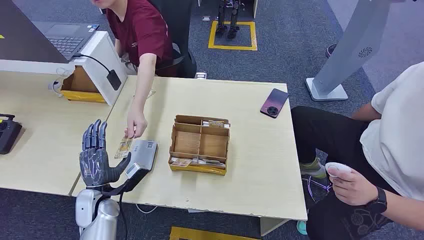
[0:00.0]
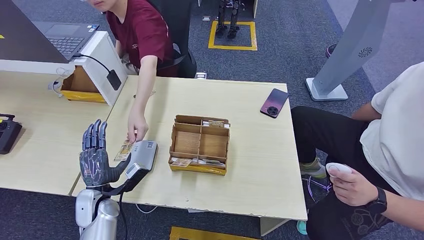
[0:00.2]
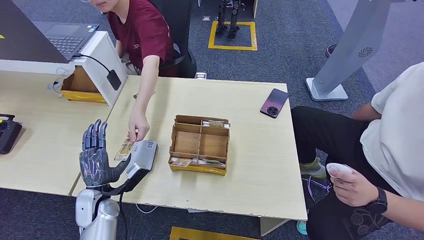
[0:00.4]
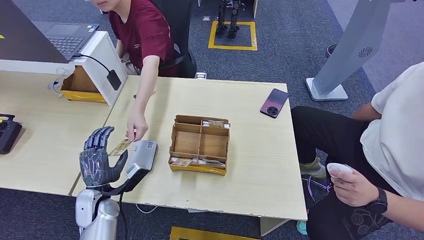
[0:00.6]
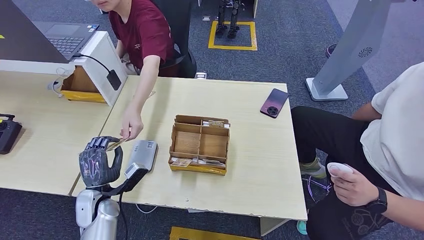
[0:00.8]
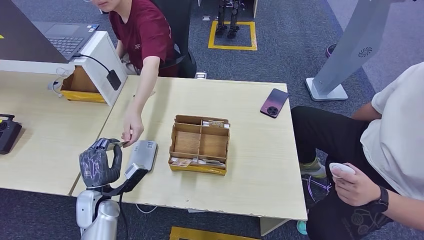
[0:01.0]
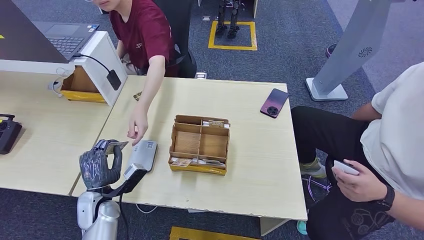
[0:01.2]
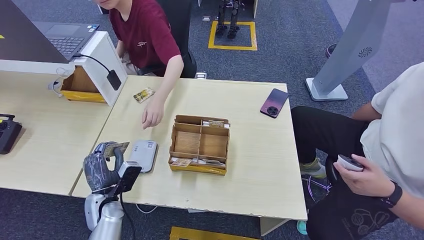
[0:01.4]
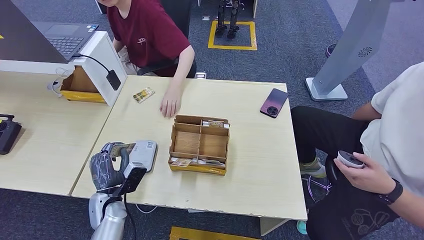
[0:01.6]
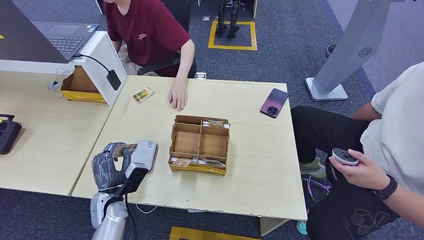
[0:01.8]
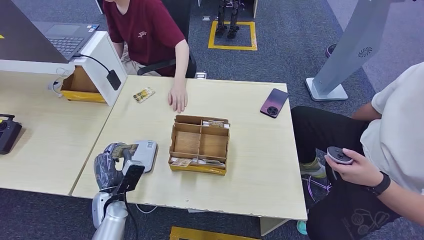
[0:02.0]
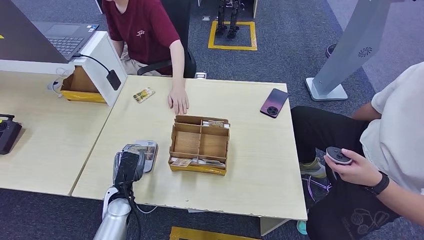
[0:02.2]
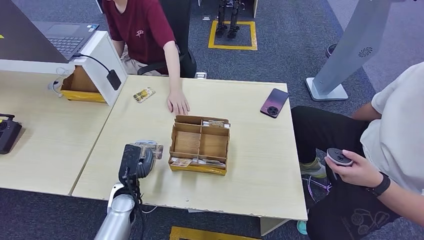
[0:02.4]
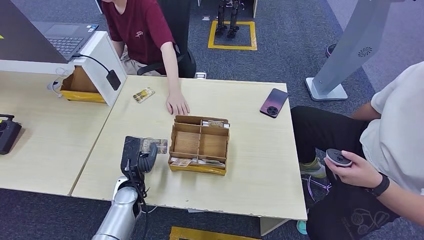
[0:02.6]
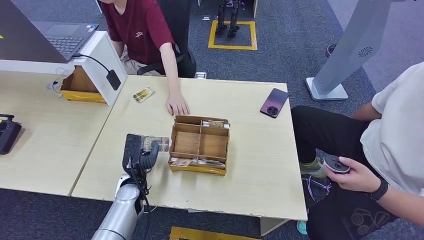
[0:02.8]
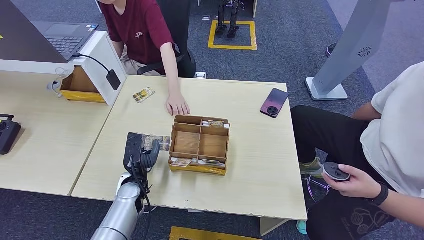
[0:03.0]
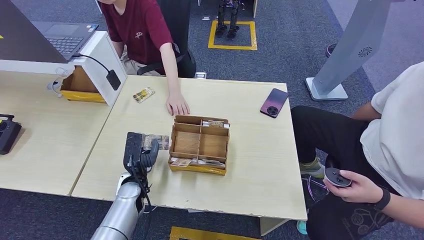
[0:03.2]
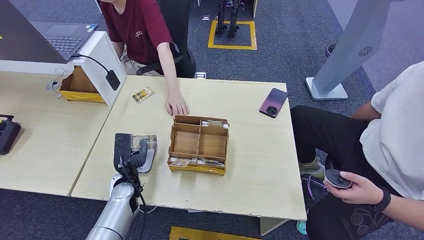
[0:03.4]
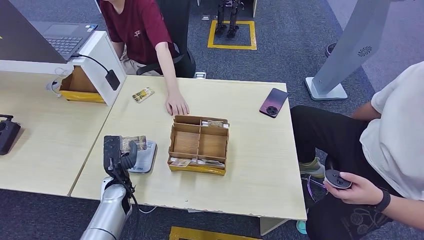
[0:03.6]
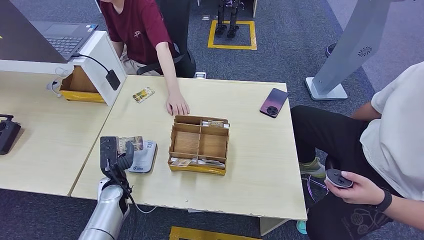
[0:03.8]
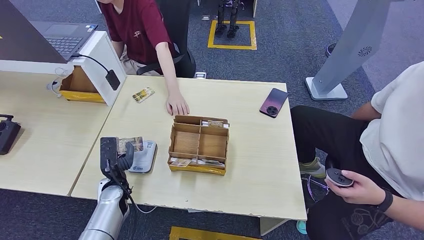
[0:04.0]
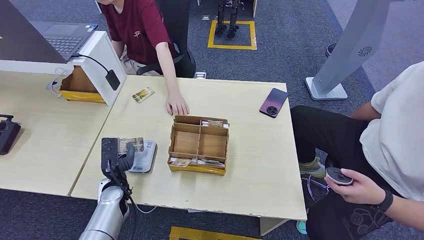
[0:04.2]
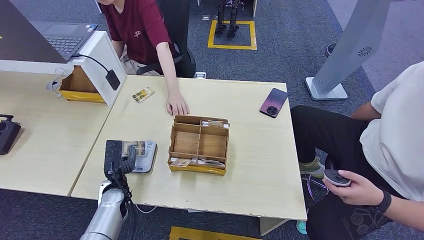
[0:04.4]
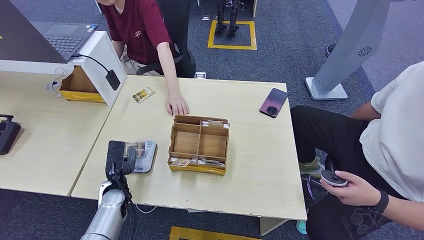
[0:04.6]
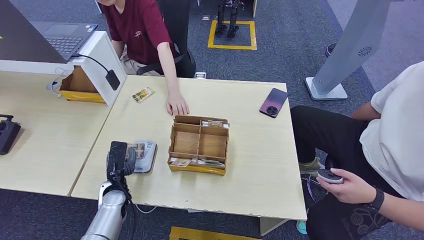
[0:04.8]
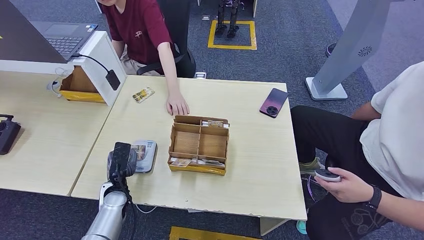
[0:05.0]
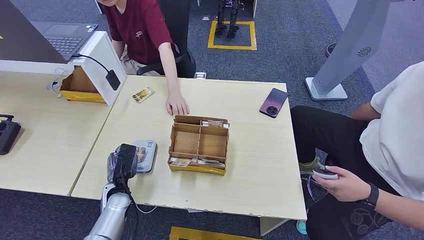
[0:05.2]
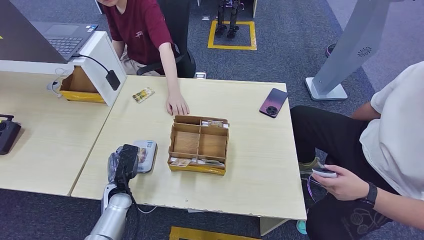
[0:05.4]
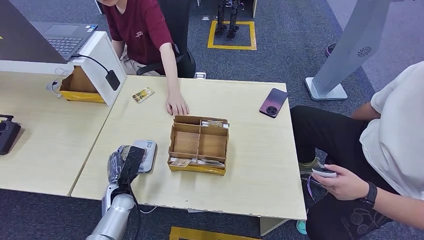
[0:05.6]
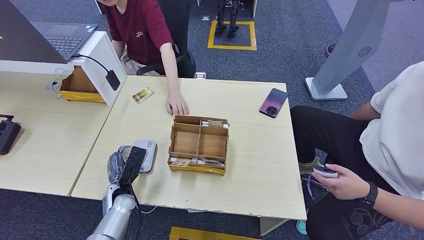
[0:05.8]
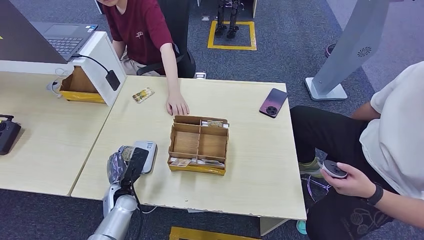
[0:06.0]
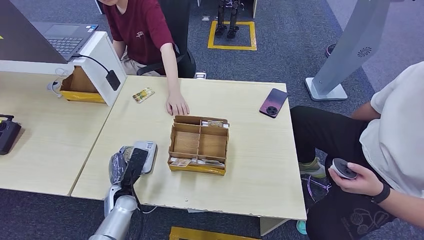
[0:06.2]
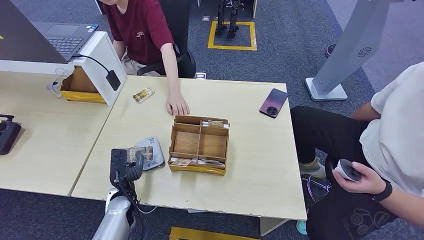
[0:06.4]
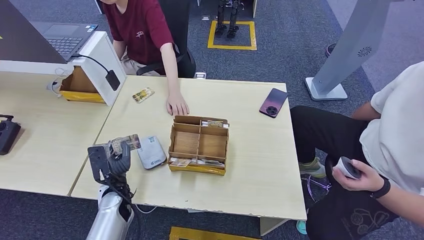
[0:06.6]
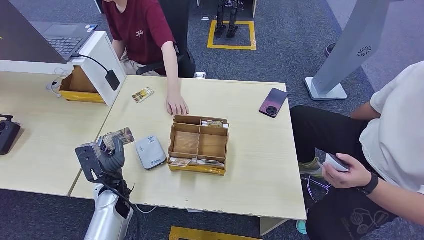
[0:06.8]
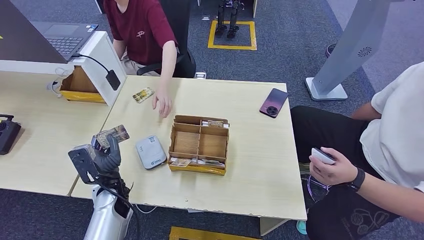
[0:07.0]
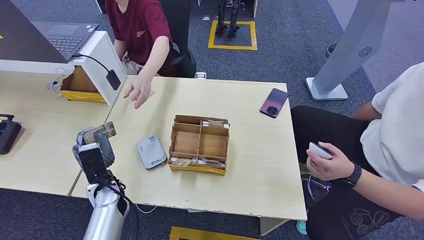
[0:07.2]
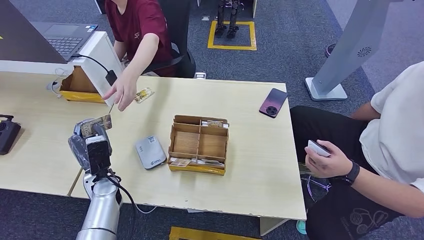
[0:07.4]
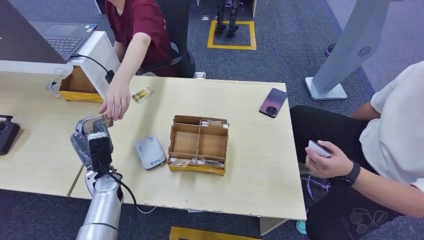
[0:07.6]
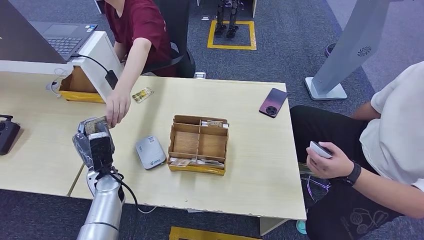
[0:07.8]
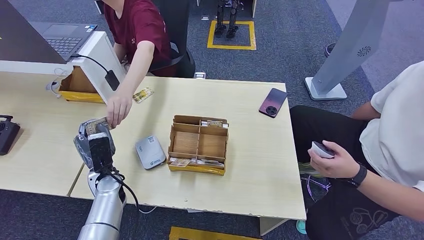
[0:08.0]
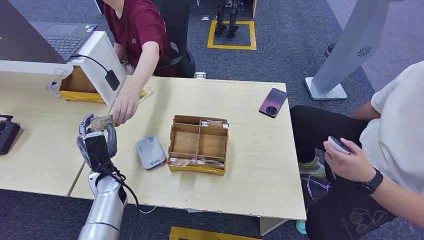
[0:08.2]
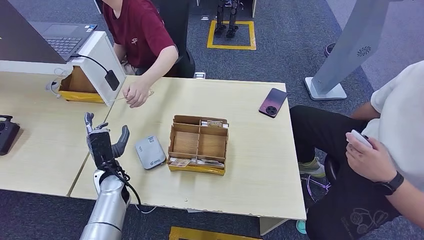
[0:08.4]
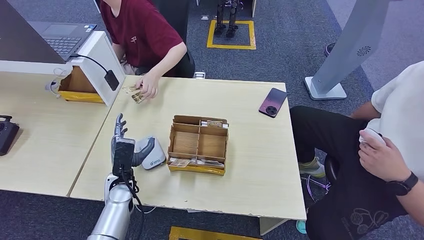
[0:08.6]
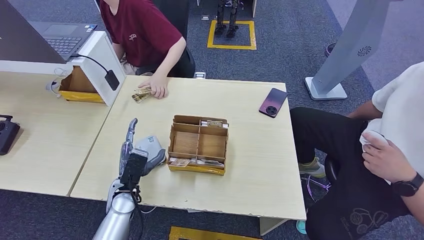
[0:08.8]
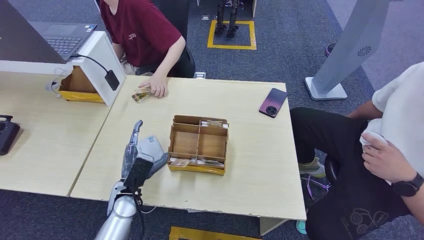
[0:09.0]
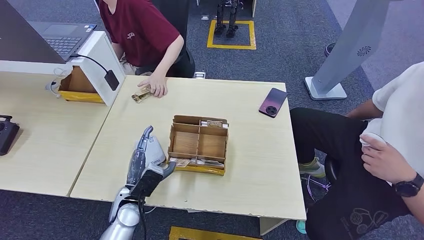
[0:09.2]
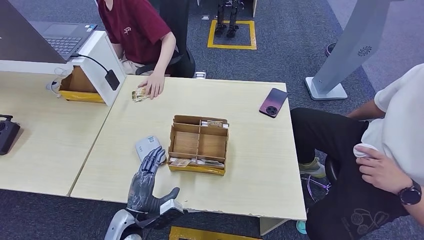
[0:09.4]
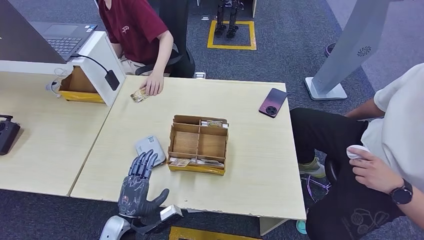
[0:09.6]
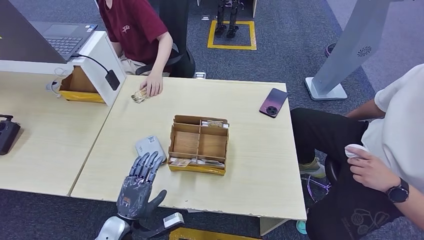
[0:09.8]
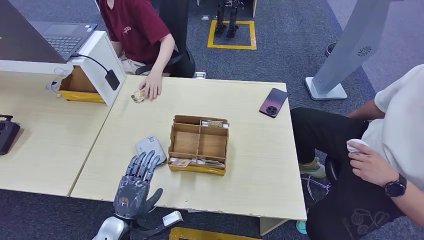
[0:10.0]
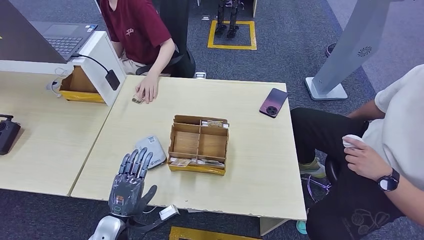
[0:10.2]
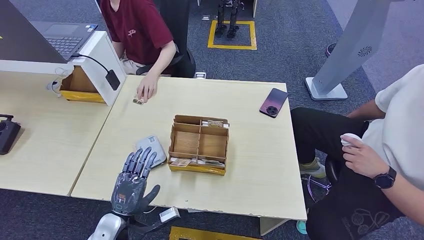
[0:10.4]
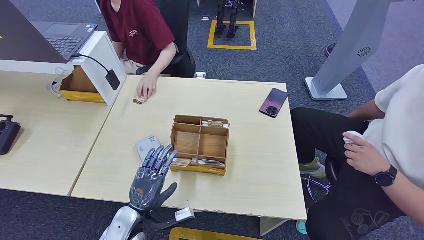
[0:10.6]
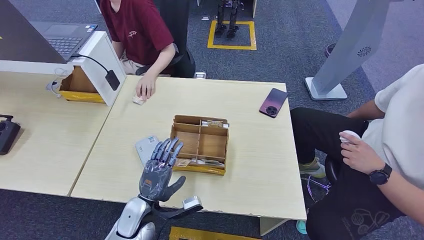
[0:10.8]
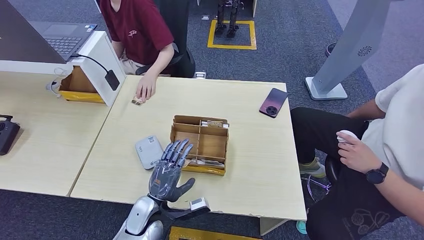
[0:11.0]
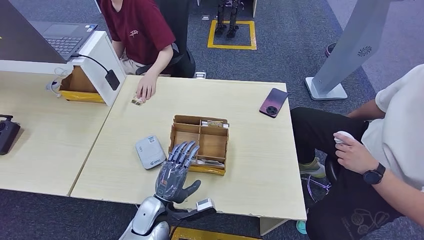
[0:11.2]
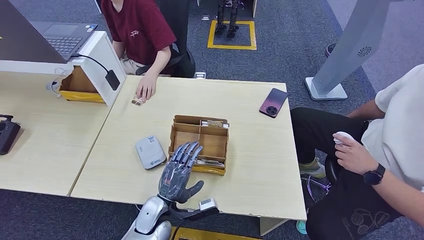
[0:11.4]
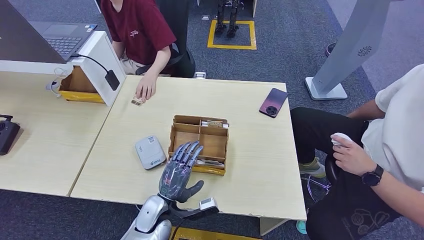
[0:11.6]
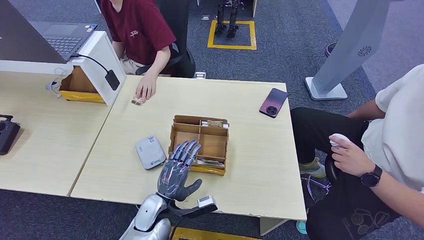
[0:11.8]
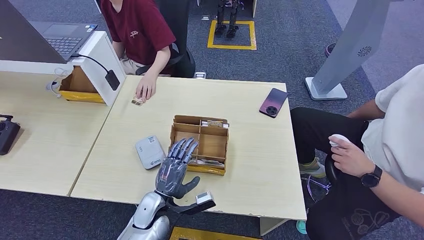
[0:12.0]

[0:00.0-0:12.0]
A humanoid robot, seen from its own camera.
Step, 0:00.0 to 0:01.0: Take the ID card from the person's hand.
Step, 0:01.2 to 0:05.8: Place the ID card on the card reader.
Step, 0:06.2 to 0:07.8: Hand the ID card to the person.
0:01.6 to 0:03.0: The left hand shifts roughly 5 cm to the right.
0:03.0 to 0:04.4: The left hand travels to the left by approximately 5 cm.
0:06.0 to 0:07.6: The left hand moves upward, about 10 cm.
0:07.6 to 0:09.0: The left hand heads to the right and backward, covering some 10 cm.
0:09.0 to 0:10.4: The left hand is displaced backward by some 5 cm.
0:10.4 to 0:12.0: The left hand heads to the right and forward, covering roughly 10 cm.

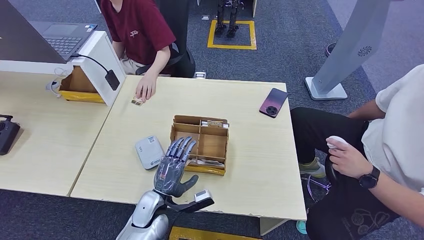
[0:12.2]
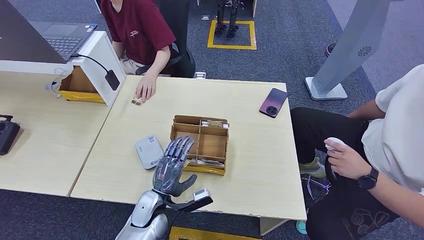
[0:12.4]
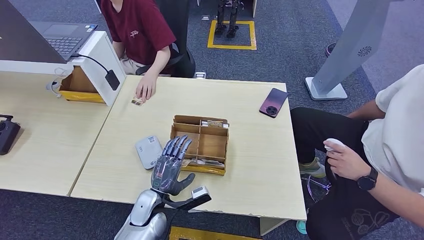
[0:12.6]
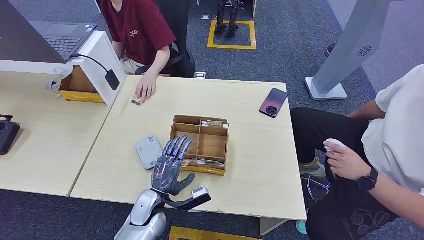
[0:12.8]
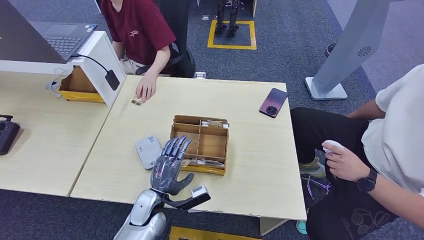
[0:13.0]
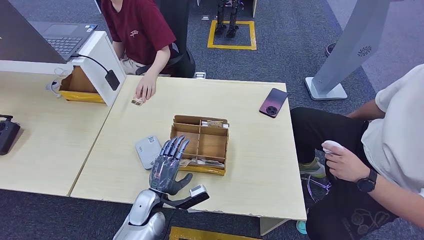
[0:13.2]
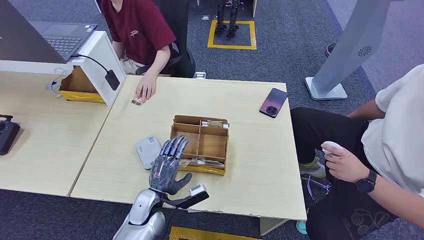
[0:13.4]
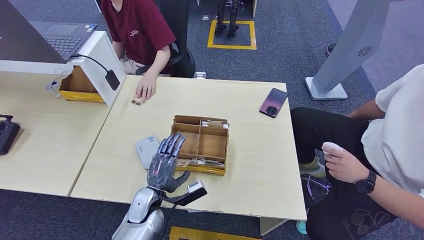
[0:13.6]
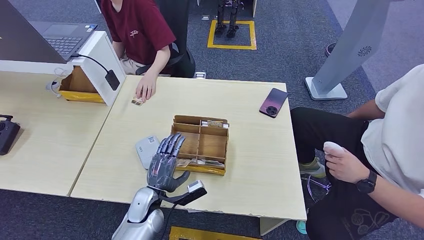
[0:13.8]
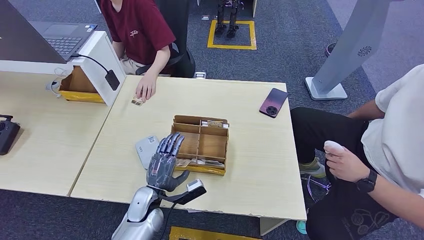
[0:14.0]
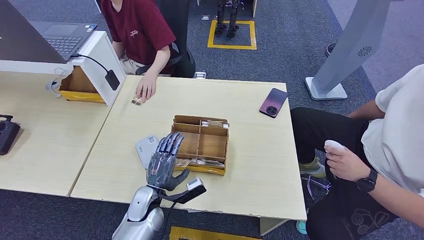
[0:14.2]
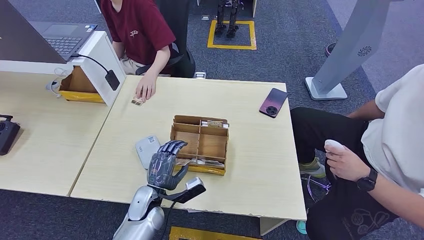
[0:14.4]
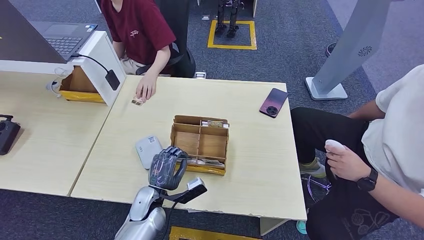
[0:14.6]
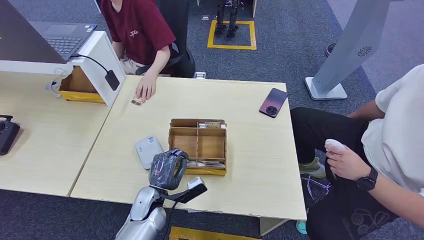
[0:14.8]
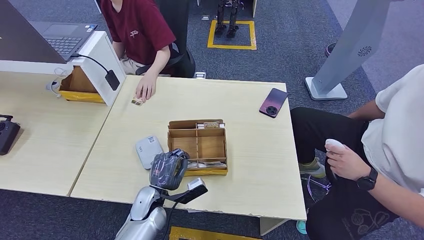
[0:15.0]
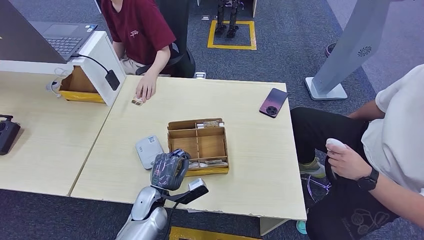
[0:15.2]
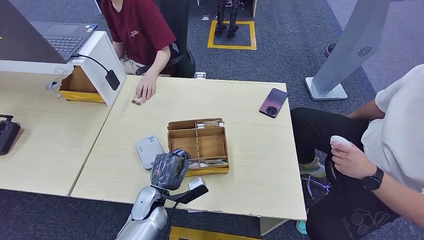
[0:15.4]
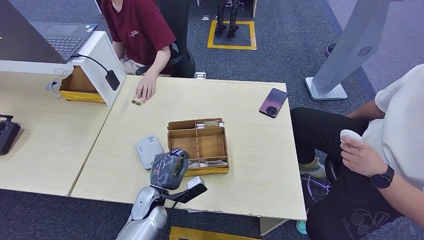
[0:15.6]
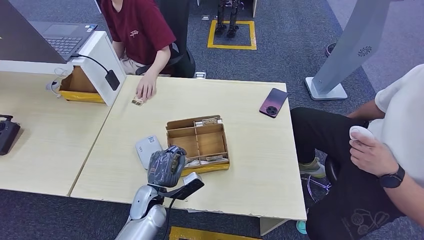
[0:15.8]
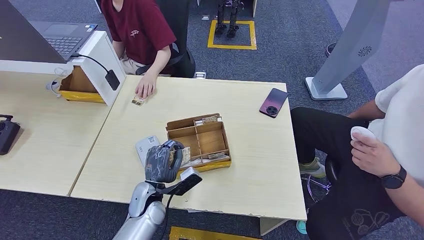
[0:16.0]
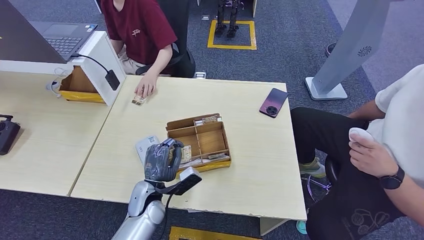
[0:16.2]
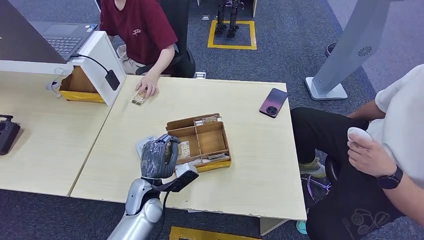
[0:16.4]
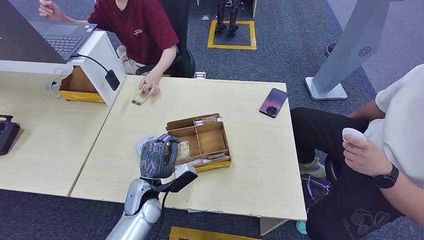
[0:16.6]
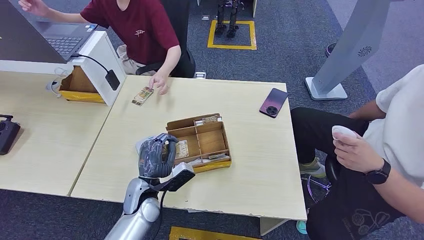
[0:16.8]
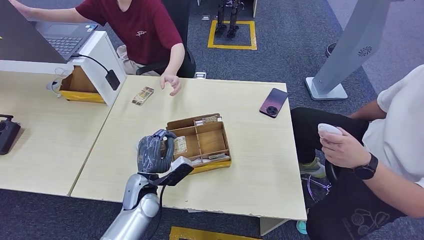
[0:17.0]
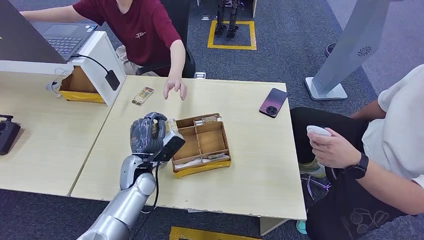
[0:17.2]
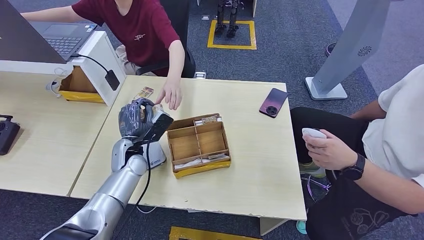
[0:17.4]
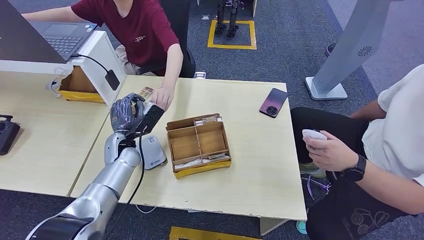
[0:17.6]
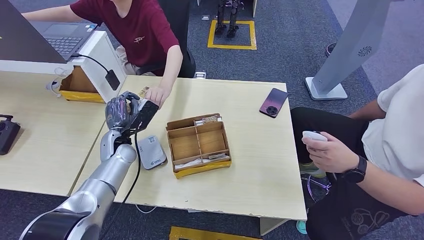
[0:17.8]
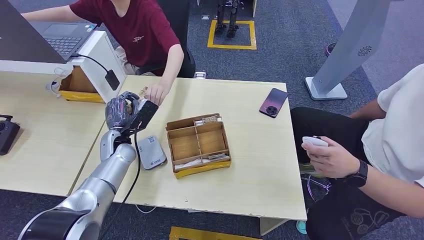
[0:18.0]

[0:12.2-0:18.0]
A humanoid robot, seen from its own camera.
Step, 0:12.8 to 0:17.4: Pick up the room key from the key card box.
Step, 0:17.8 to 0:18.0: Hand the room key to the person.
0:12.2 to 0:16.6: The hands make only small movements.
0:16.6 to 0:18.0: The left hand moves forward and to the left, some 15 cm.
